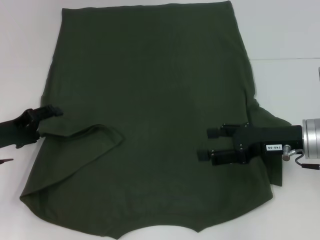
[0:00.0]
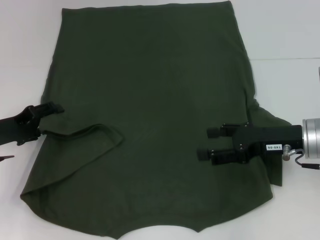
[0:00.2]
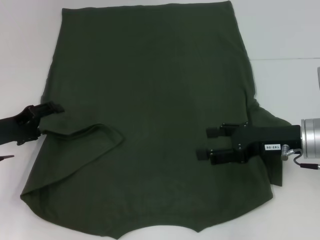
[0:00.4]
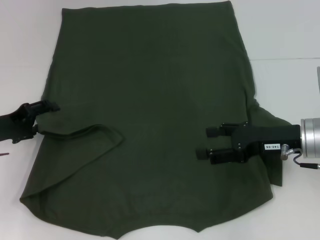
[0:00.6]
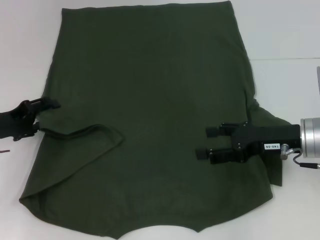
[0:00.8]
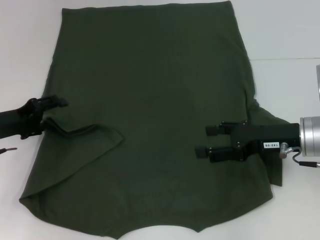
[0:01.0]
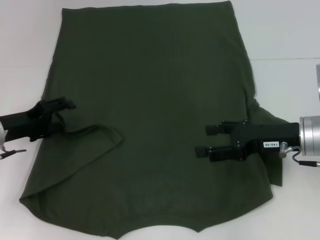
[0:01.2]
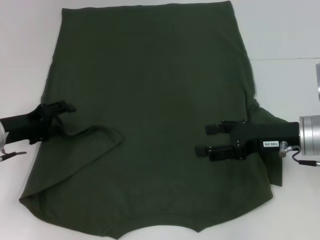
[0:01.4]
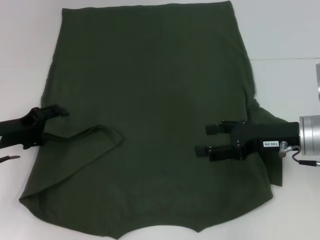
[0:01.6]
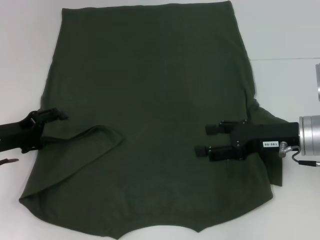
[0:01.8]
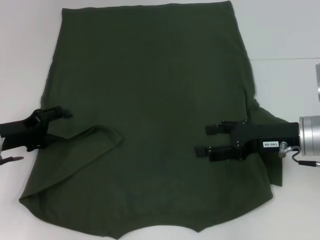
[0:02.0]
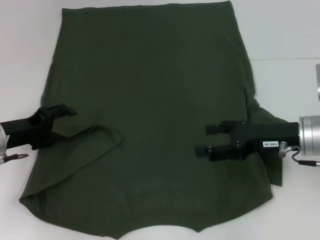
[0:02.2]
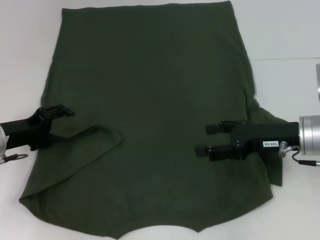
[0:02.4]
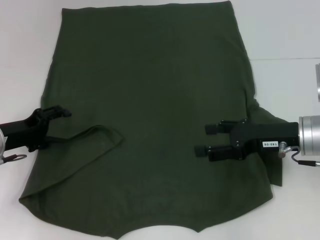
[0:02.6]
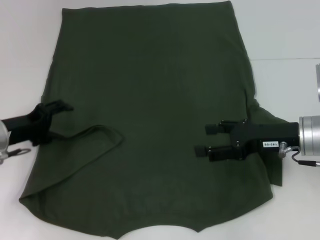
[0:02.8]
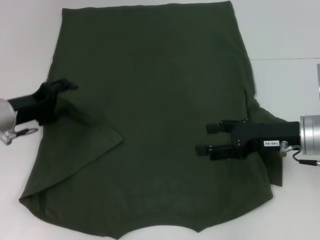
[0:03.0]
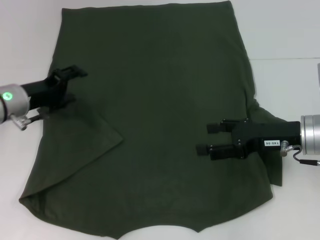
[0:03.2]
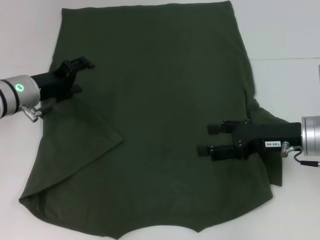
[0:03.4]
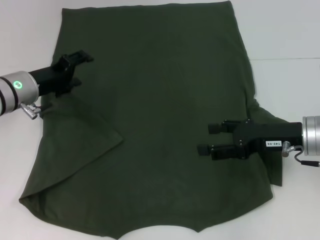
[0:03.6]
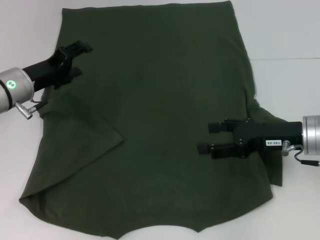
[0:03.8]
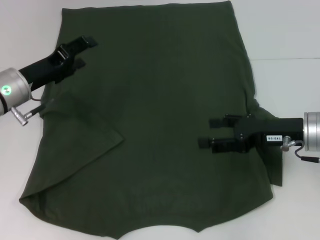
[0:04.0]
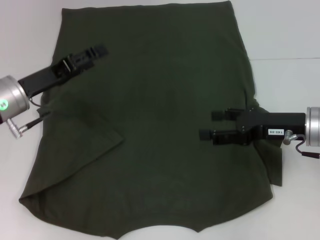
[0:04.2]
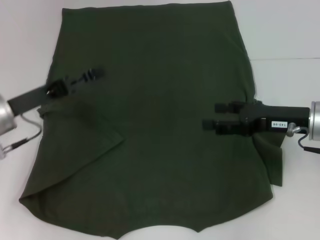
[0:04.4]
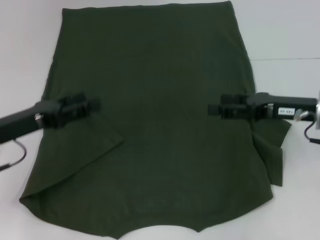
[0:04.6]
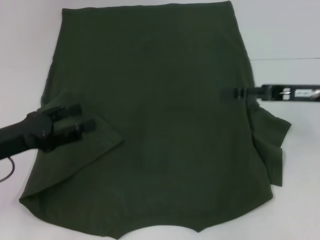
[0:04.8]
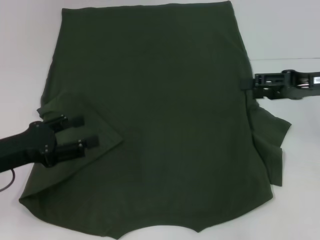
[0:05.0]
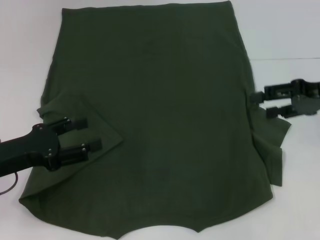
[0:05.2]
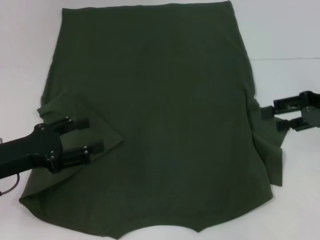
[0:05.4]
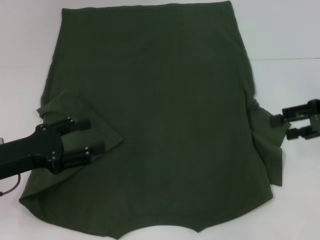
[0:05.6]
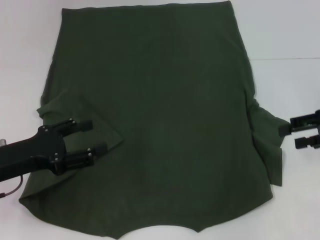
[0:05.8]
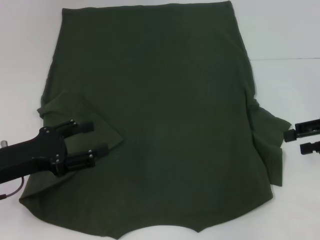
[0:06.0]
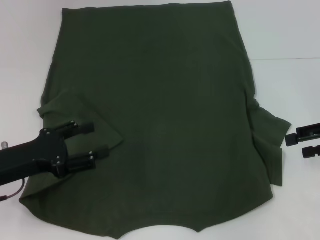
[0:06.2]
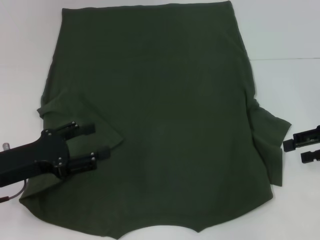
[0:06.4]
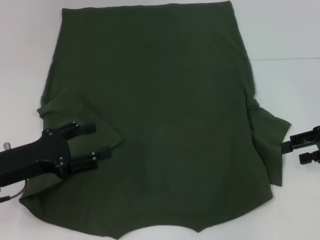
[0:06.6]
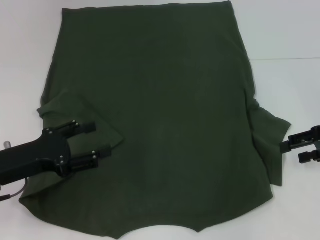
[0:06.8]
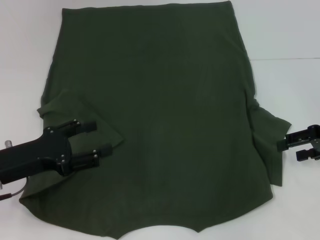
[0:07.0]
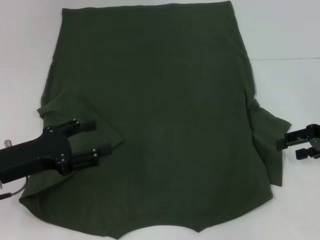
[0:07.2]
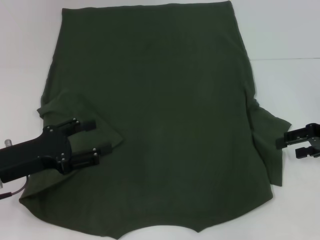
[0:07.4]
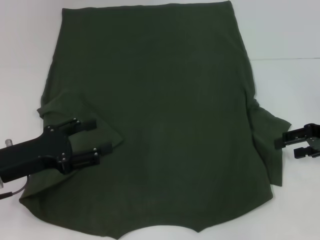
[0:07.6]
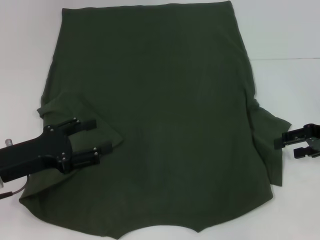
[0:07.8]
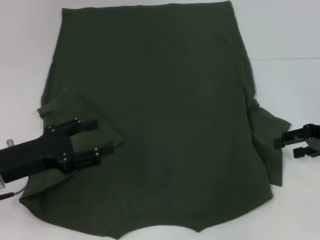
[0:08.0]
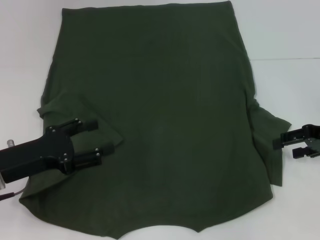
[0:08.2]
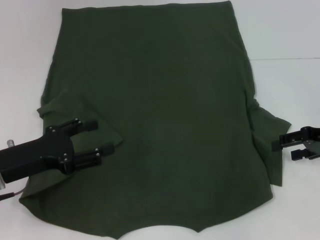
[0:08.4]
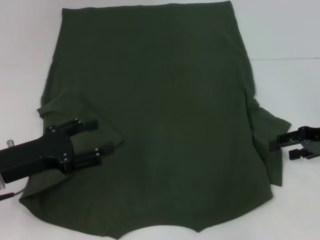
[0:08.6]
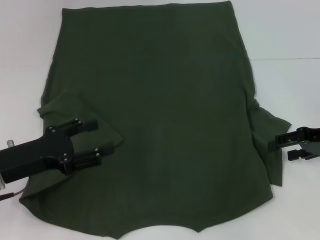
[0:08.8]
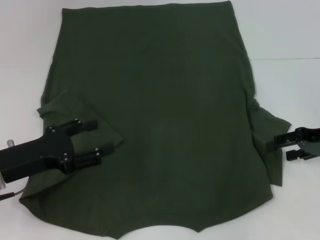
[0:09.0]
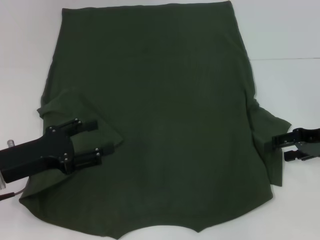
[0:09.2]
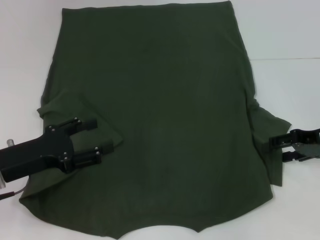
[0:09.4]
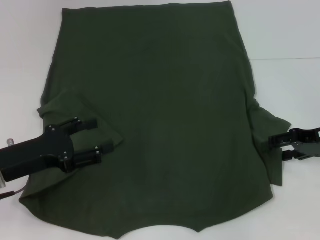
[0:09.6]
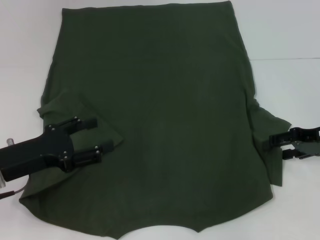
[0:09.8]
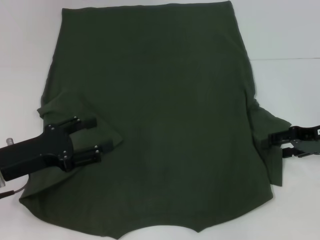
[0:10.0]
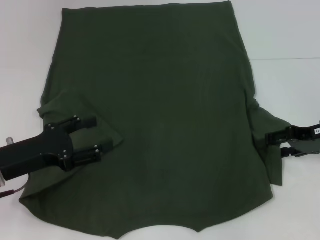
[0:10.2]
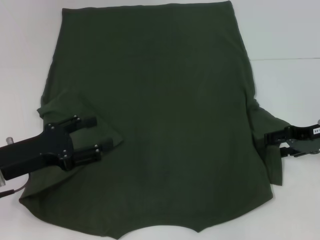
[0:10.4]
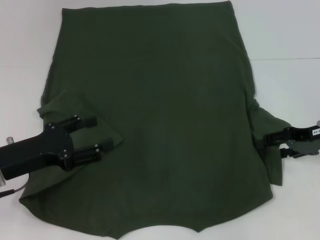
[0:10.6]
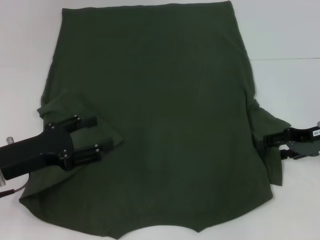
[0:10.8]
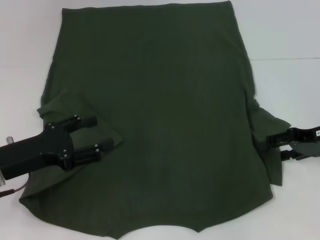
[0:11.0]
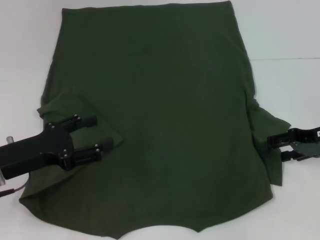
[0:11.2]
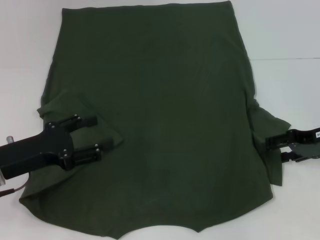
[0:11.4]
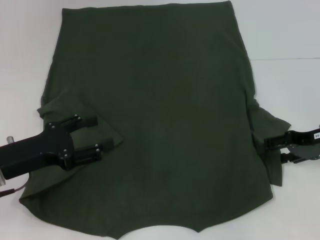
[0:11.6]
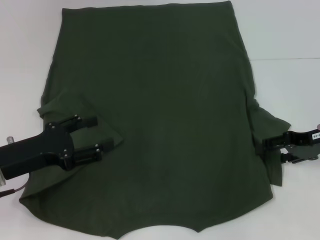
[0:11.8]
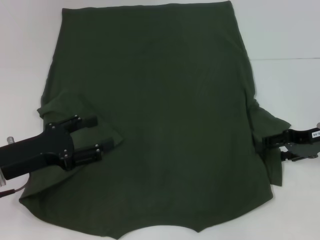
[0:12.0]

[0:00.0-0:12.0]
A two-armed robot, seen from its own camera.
Step, 0:00.0 to 0:03.6: Fold the bottom left sleeve with your left hand.
0:00.0 to 0:03.0: The grippers make only small movements.
0:04.4 to 0:06.0: The right gripper heads to the right, covering some 10 cm. The left gripper goes about 5 cm backward.
0:06.0 to 0:09.0: The grippers move only a little.
0:09.0 to 0:10.4: The grippers make only small movements.
0:10.4 to 0:12.0: Both grippers stay about where they are.

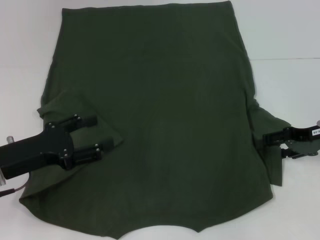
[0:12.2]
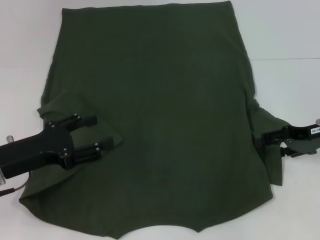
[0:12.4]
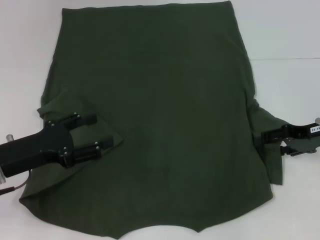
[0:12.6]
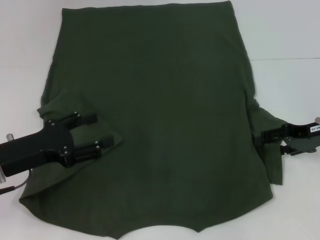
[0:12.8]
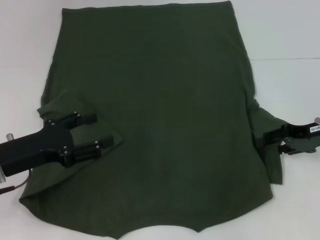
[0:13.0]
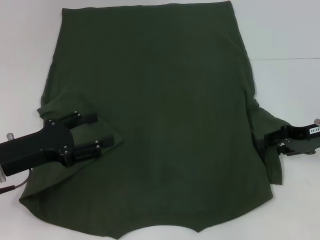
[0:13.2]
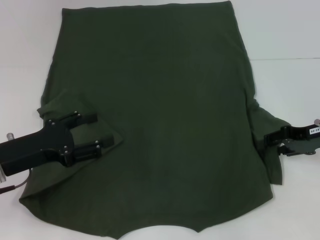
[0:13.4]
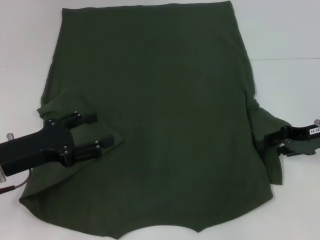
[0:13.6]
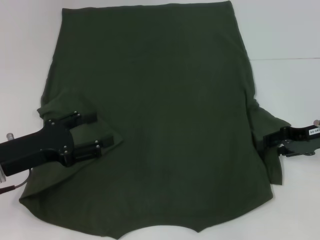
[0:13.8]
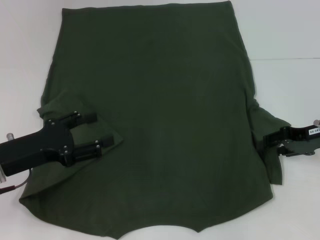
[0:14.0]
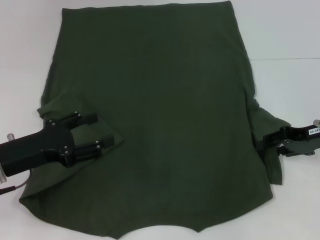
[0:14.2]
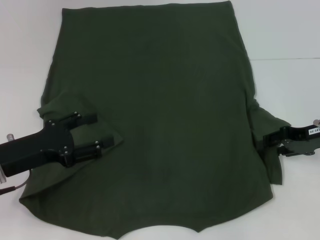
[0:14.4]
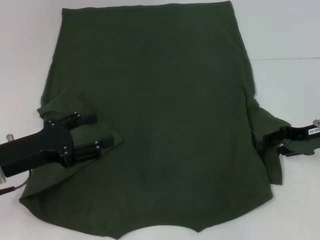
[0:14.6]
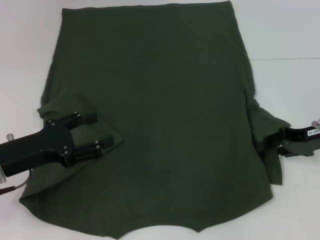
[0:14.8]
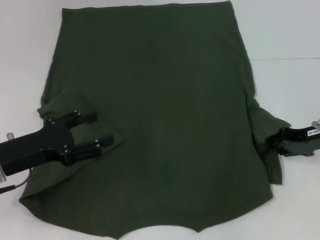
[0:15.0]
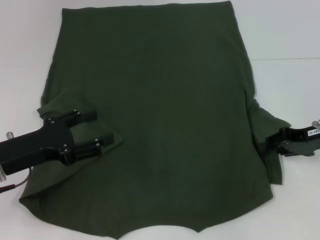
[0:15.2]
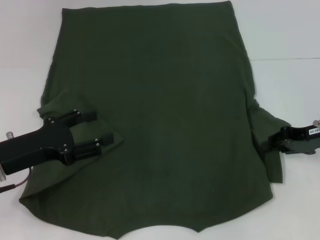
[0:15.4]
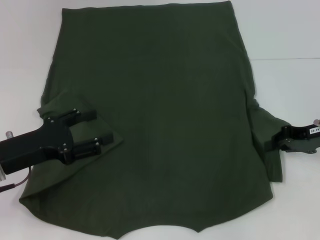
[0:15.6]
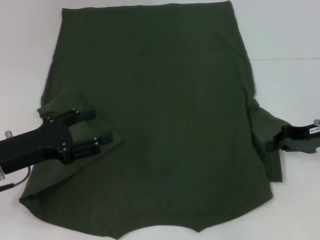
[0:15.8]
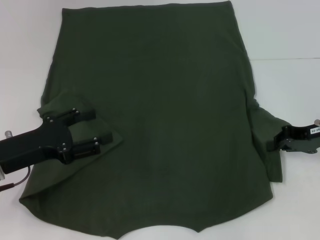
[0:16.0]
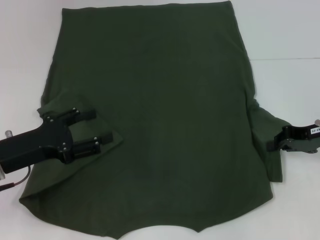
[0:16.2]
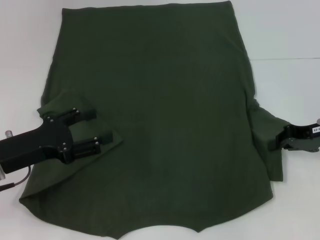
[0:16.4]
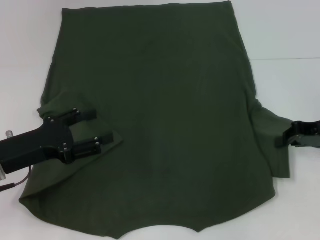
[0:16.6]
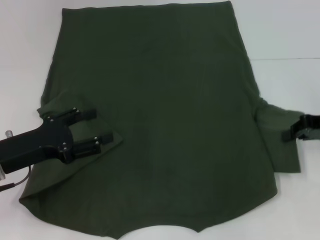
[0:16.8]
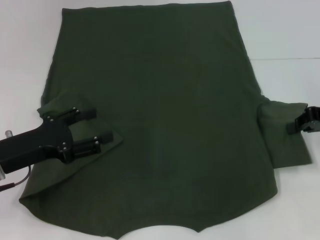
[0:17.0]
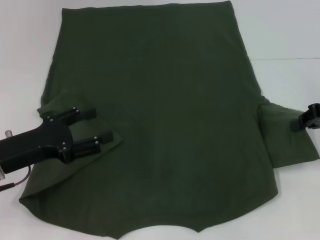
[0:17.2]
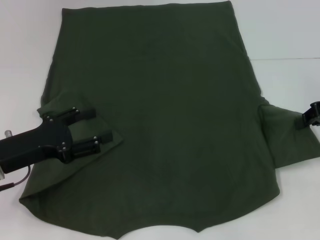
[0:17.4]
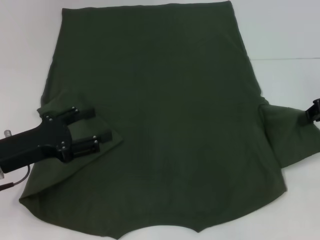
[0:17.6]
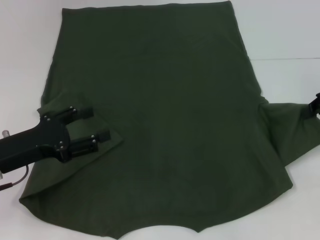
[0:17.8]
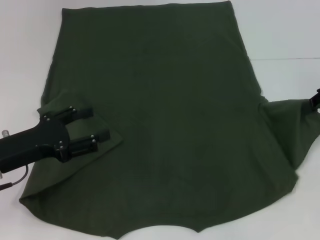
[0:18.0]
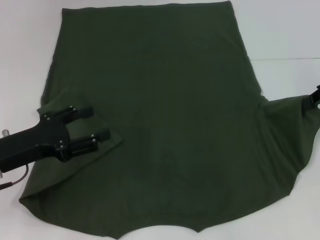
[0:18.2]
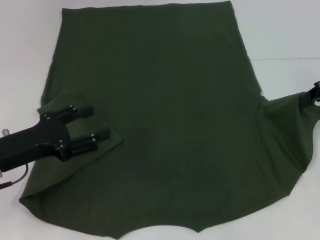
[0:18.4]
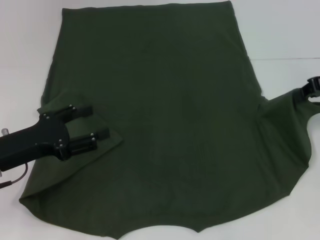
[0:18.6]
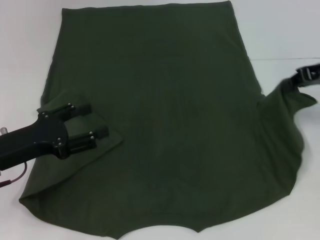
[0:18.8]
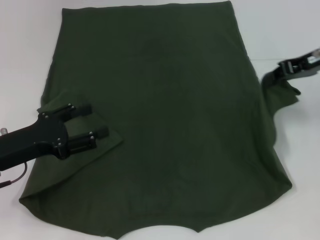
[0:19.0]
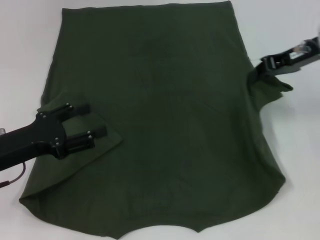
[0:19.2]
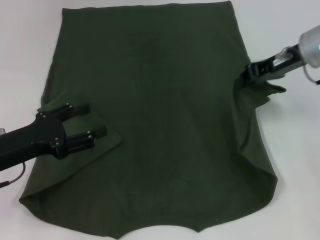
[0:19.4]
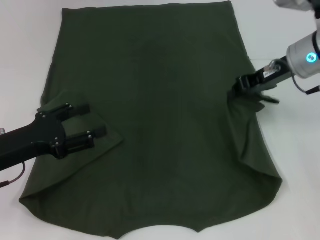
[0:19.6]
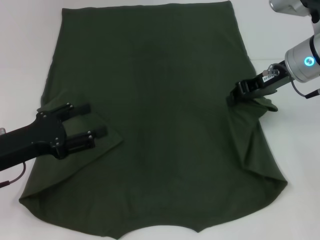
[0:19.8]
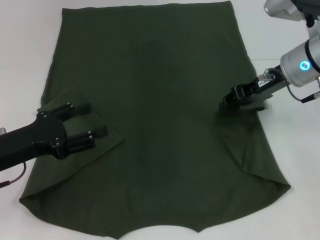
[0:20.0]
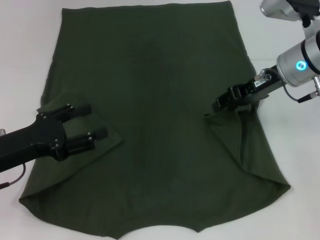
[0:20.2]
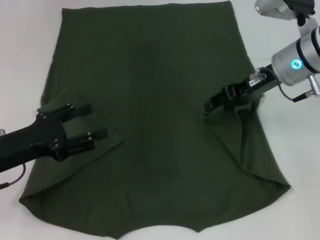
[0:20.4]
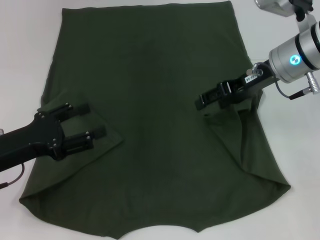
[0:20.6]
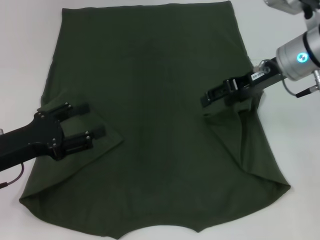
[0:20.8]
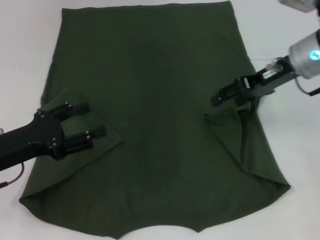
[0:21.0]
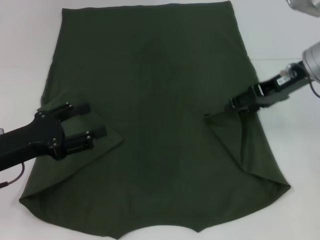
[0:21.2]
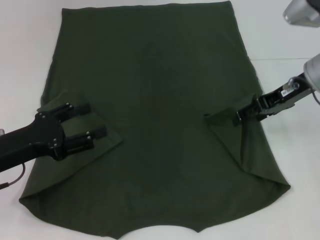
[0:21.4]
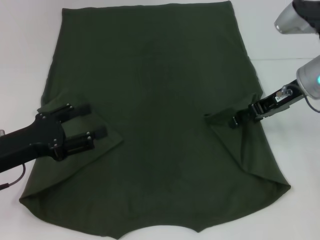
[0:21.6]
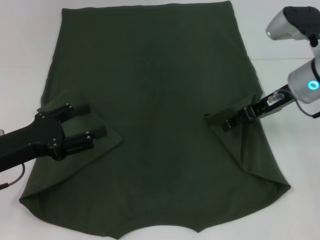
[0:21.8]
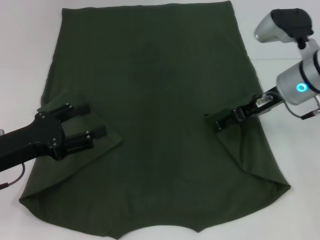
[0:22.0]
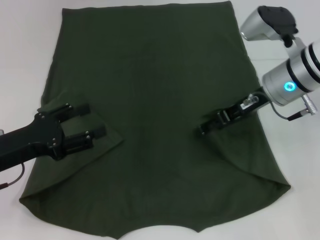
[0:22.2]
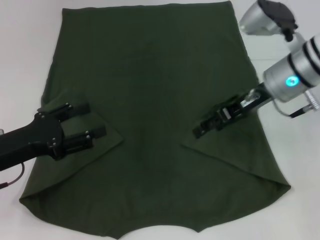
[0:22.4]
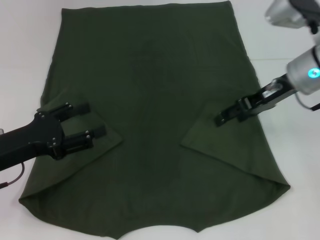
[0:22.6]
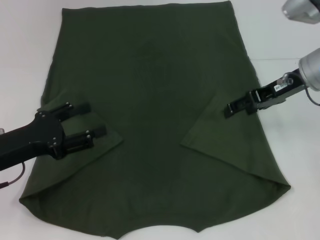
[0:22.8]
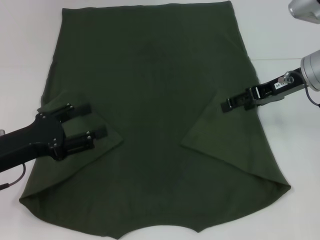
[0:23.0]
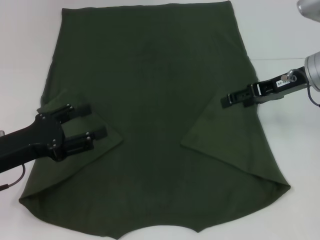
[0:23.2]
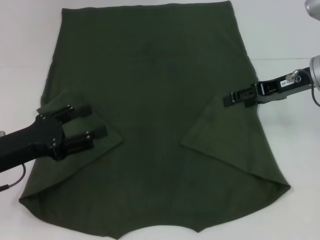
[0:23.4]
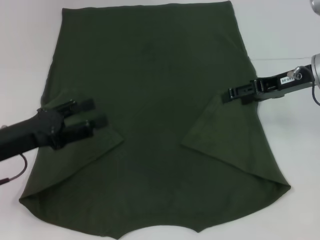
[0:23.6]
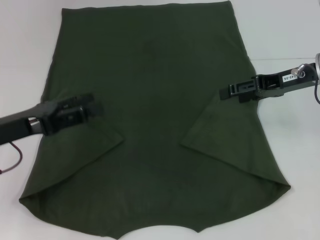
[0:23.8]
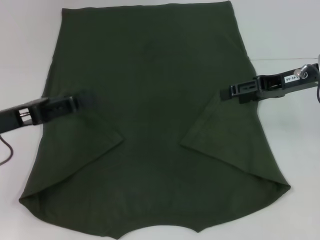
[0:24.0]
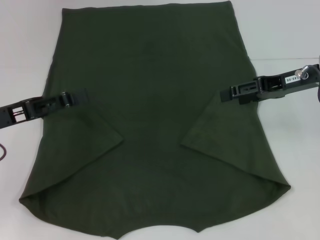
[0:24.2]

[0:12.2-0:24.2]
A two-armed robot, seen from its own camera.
Step, 0:12.2 to 0:23.0: Fold the bottom right sleeve with your right hand.
0:13.8 to 0:15.2: Both grippers stay about where they are.
0:15.2 to 0:16.6: The right gripper closes.
0:16.6 to 0:18.2: The right gripper shifts approximately 5 cm upward.
0:18.2 to 0:19.8: The right gripper shifts roughly 10 cm to the left.
0:19.8 to 0:21.2: The right gripper opens.
